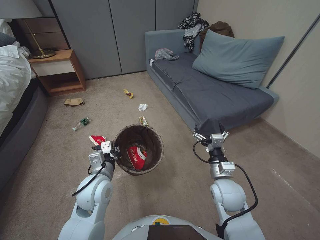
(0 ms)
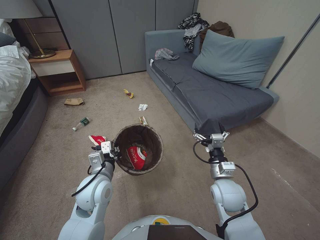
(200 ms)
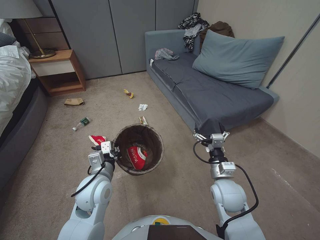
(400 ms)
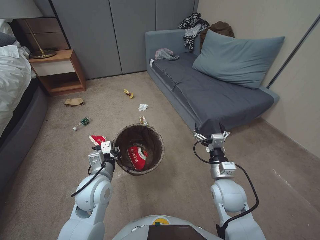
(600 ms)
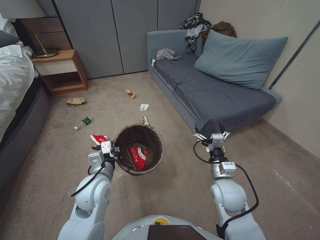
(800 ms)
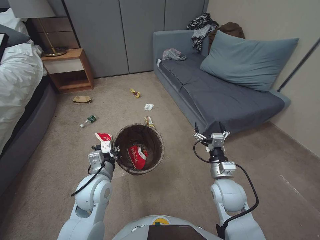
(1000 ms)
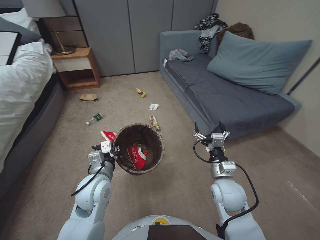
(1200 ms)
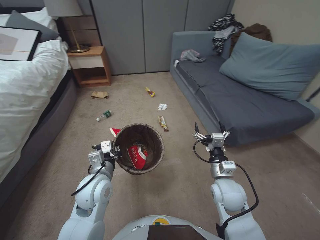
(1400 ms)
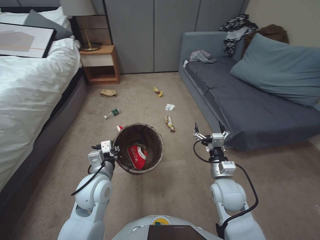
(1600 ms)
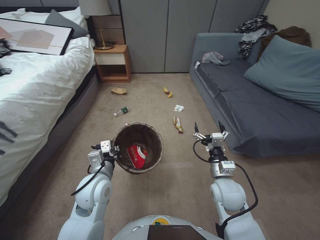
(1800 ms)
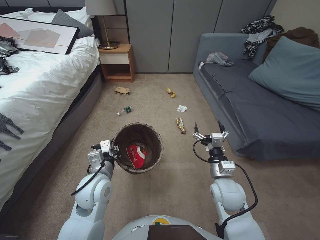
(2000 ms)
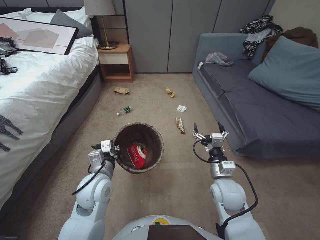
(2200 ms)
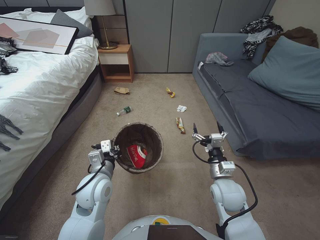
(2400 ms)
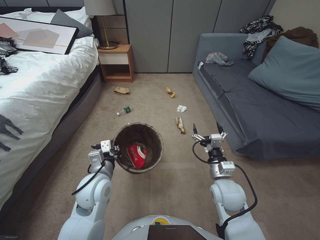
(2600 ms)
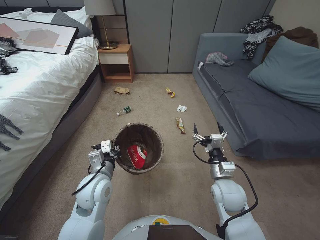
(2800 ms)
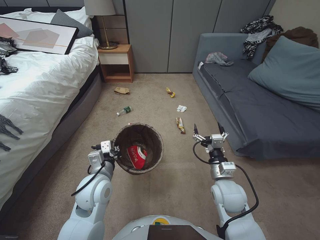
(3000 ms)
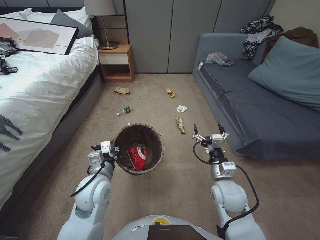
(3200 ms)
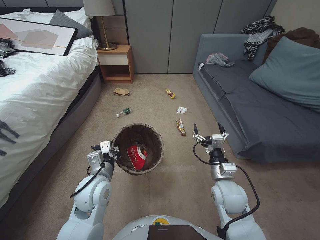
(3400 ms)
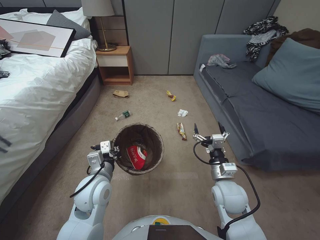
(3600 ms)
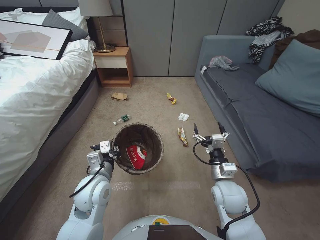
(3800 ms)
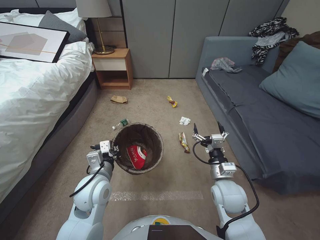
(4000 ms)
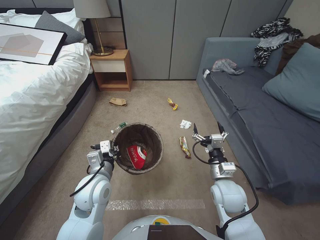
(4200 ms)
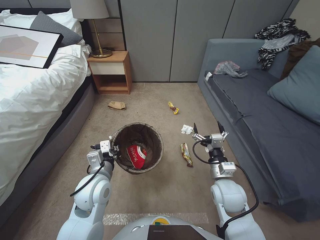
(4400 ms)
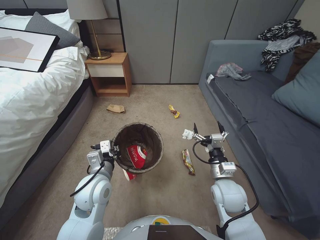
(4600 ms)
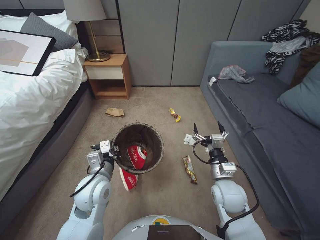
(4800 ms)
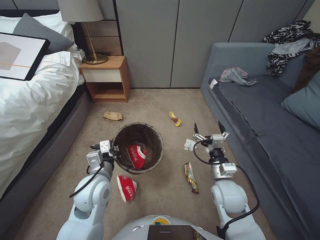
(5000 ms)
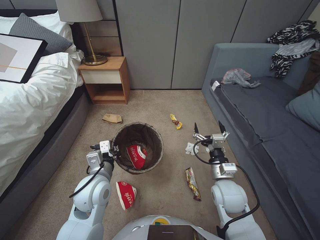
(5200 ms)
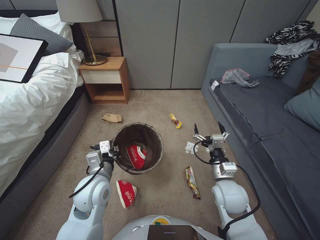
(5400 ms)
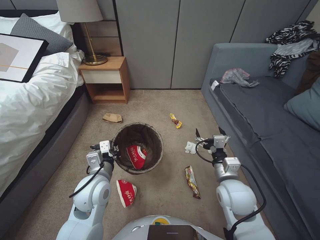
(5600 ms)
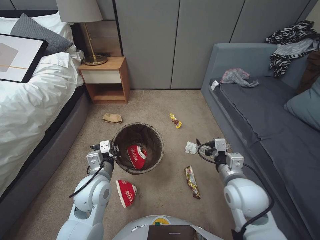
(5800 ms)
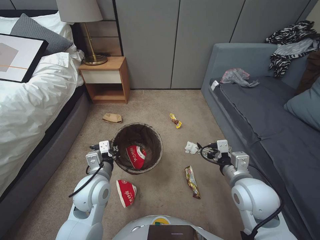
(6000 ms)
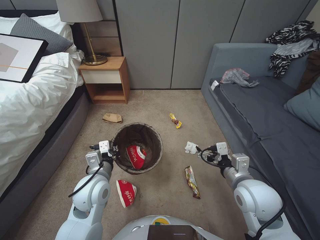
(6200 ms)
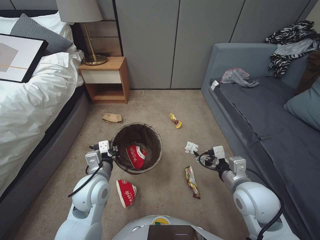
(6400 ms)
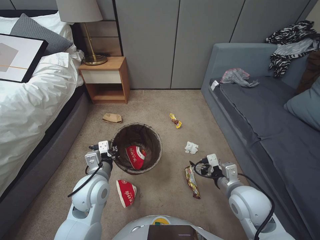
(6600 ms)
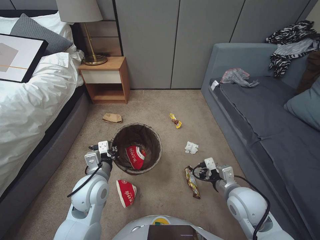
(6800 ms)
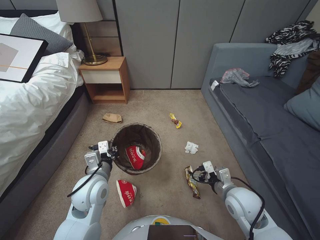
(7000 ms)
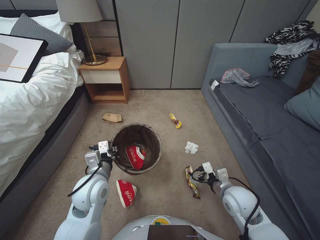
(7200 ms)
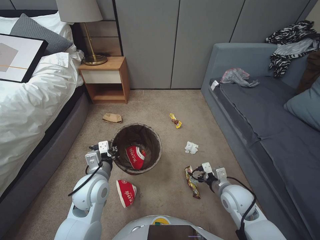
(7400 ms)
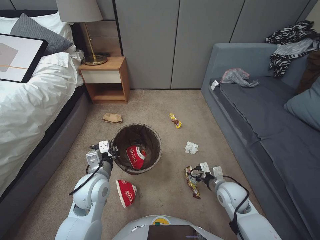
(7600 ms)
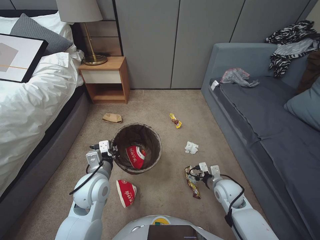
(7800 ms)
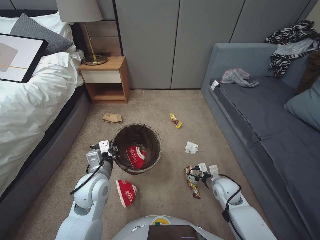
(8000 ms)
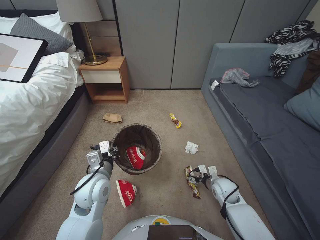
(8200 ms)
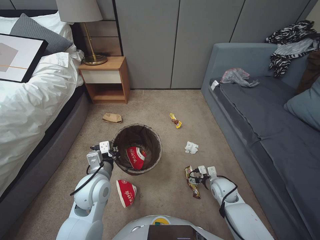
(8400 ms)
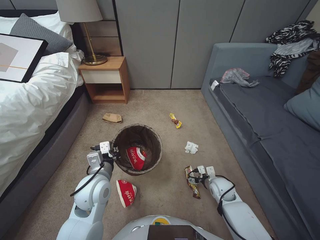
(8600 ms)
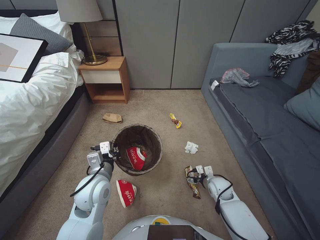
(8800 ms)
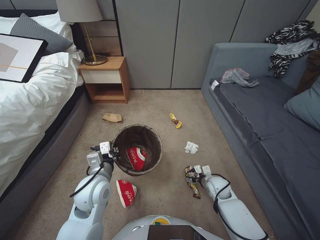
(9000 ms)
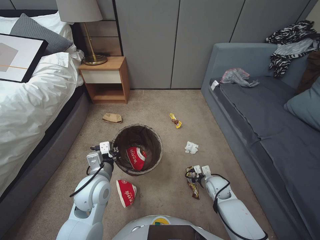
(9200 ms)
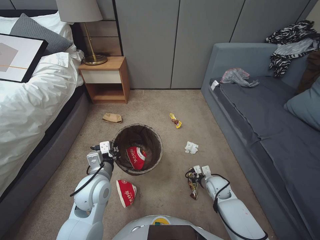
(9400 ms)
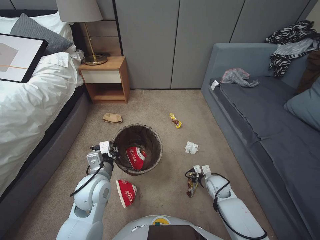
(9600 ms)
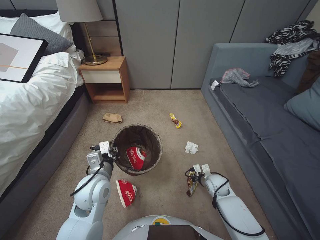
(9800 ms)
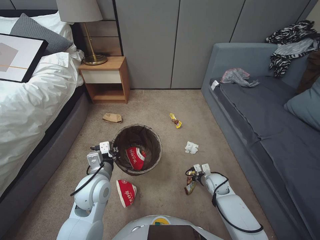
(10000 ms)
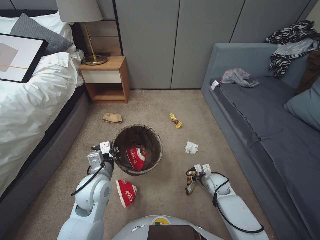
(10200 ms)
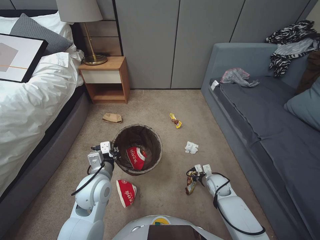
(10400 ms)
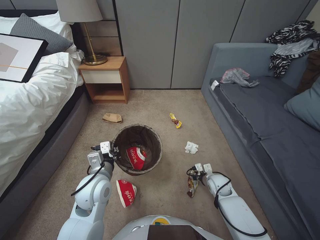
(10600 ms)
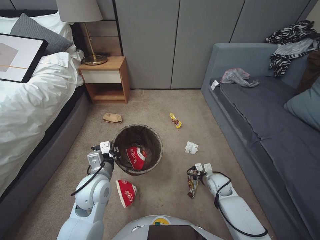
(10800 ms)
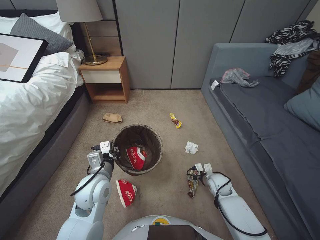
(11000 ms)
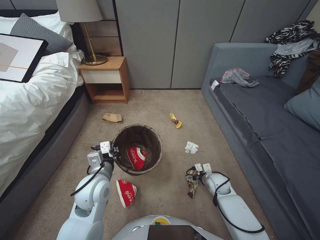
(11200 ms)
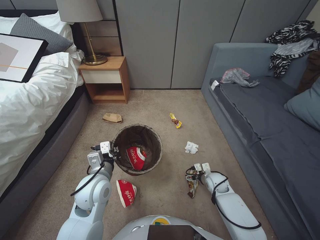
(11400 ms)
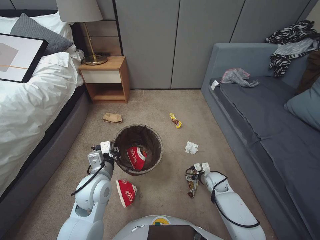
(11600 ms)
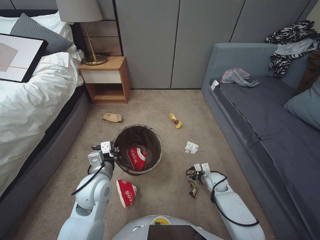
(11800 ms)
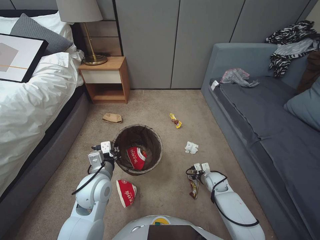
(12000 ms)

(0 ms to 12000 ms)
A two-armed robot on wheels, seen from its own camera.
Task of the whole recording: Pick up the trash bin, then pick up the garbage from the floor and place it into the trash bin.
4400 ms - 6000 ms: The right gripper is displaced upward by roughly 10 cm.
6000 ms - 7600 ms: The right gripper heads downward, covering about 15 cm.
7600 ms - 9000 ms: The right gripper goes about 10 cm downward and forward.
9000 ms - 10400 ms: The right gripper closes its fingers.
10400 ms - 12000 ms: The right gripper opens its fingers.

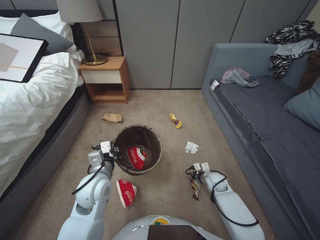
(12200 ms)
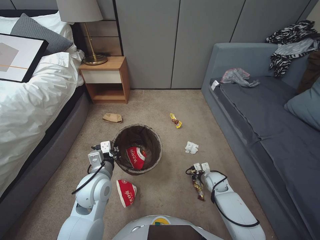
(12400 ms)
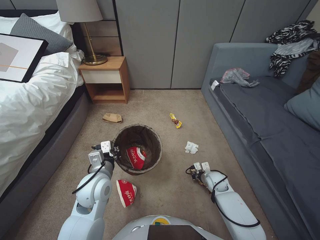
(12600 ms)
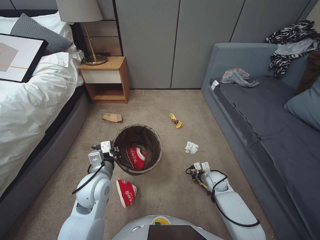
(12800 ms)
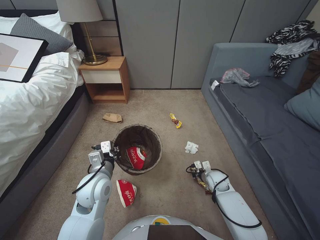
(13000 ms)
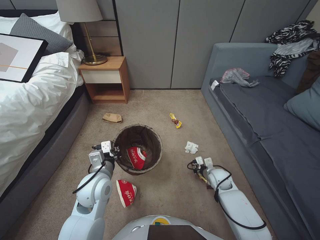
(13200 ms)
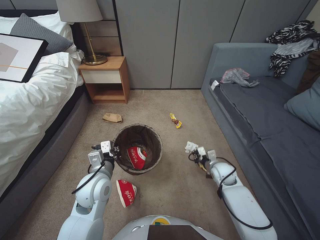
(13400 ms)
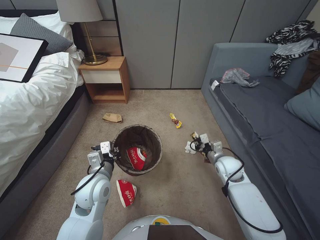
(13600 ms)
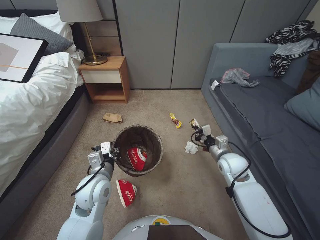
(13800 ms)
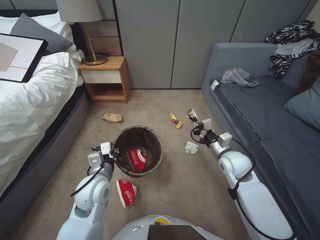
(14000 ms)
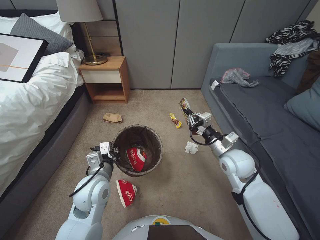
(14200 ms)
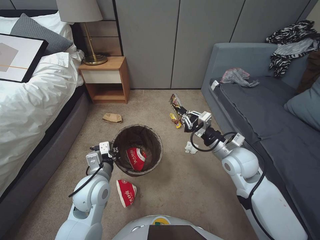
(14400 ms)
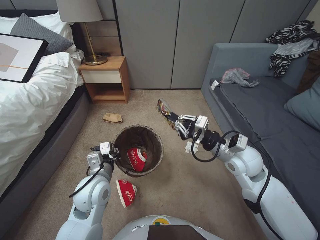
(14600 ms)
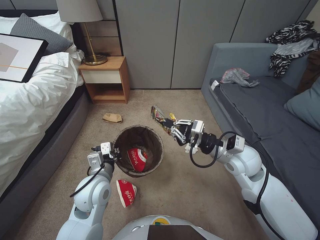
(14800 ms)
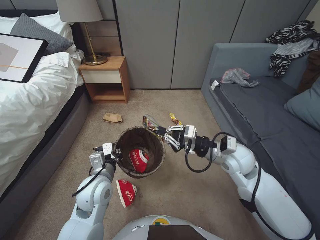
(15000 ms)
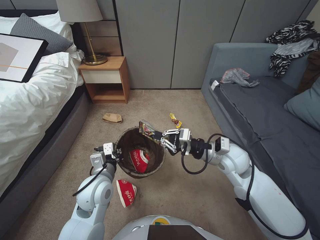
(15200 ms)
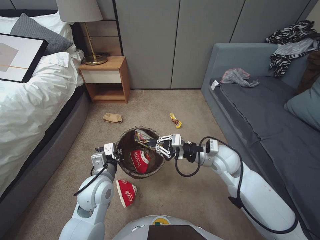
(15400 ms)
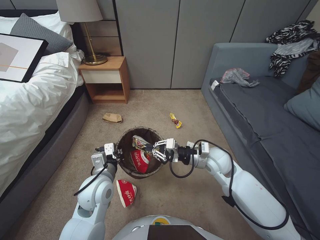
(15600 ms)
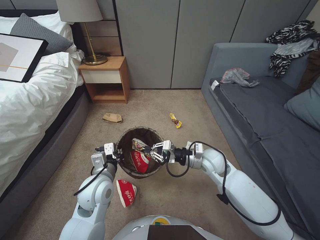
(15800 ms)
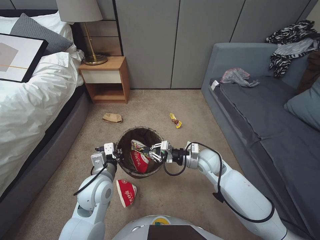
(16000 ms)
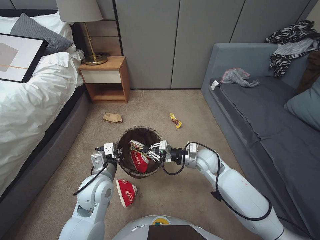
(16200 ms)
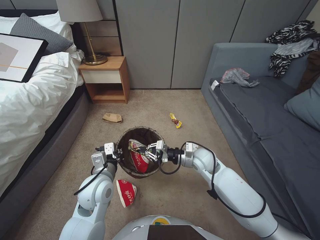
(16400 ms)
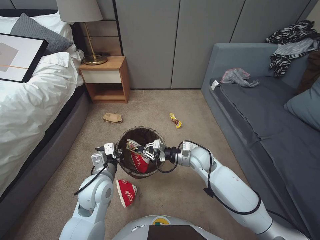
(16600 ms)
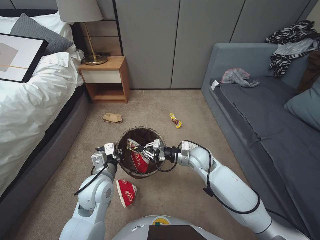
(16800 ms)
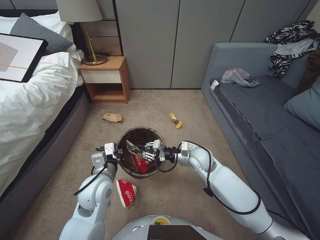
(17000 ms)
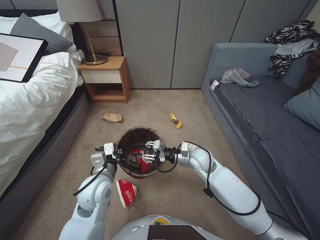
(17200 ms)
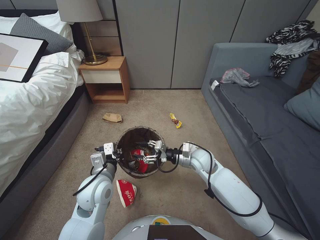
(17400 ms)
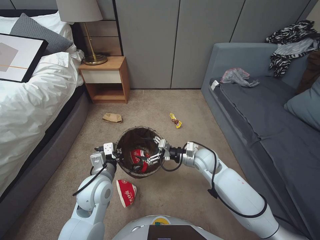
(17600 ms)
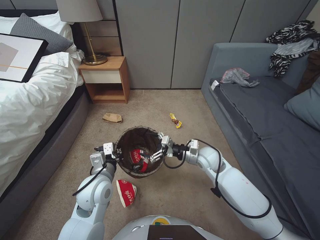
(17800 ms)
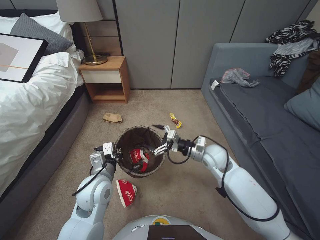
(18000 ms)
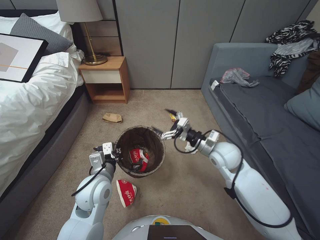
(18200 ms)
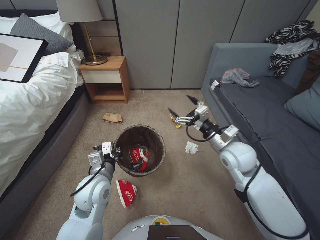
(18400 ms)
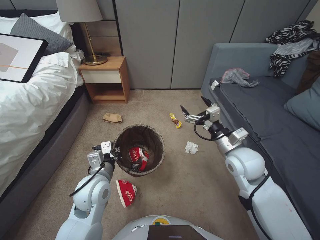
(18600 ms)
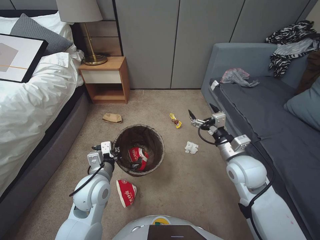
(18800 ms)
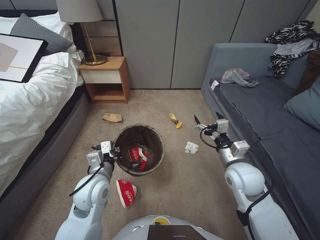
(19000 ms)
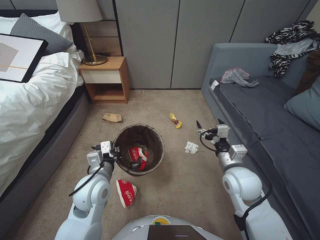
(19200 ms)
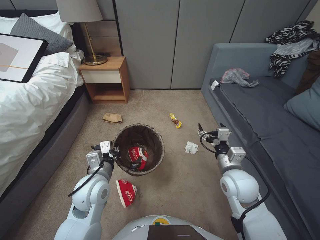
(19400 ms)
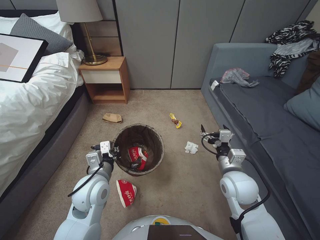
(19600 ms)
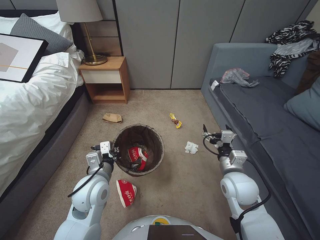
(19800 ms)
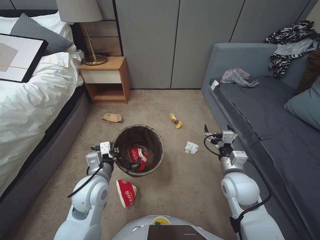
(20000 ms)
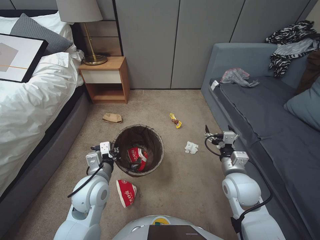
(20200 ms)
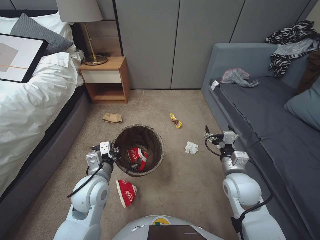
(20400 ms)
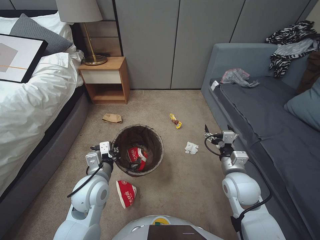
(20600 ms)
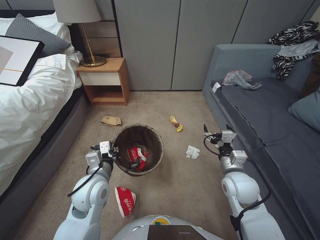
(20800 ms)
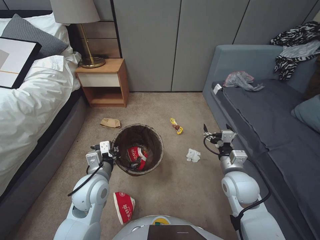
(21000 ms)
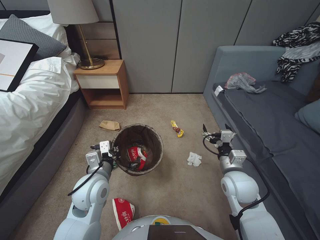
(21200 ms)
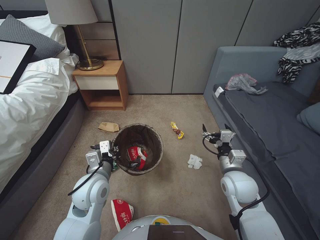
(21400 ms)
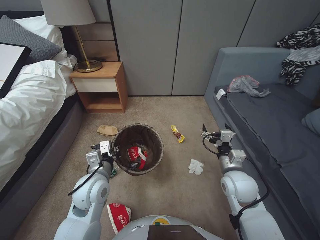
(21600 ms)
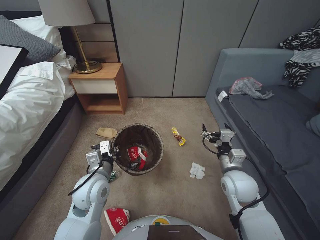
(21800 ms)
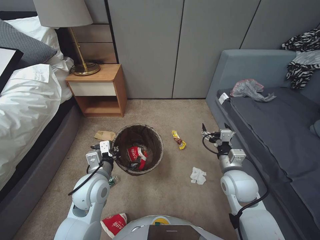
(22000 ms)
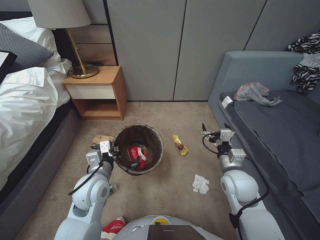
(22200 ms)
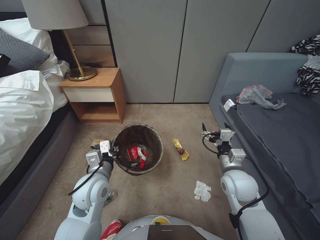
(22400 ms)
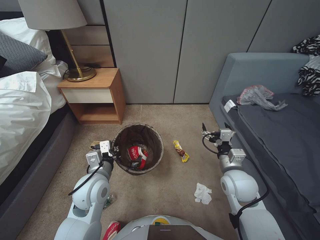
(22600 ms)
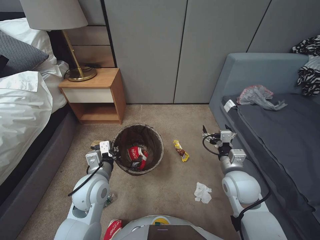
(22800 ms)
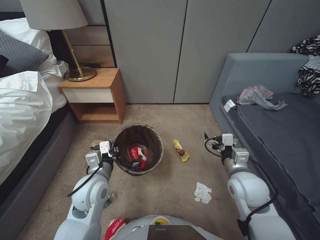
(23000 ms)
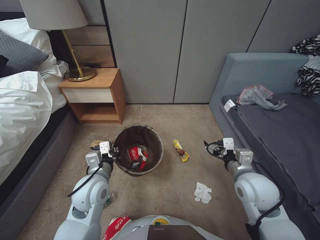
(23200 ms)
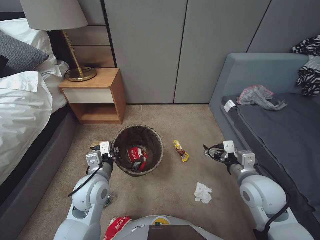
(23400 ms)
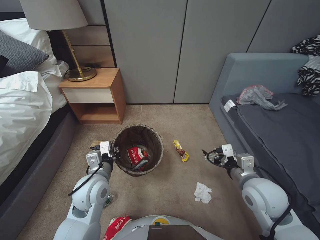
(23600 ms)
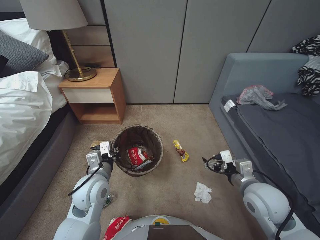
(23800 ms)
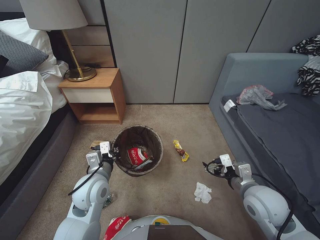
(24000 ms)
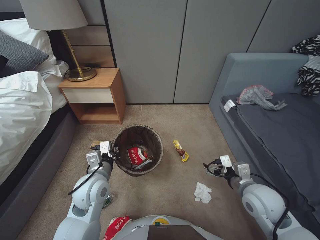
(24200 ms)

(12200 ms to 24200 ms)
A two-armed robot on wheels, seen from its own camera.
Task of the whole recording: Pick up the trash bin, then pick up the garbage from the floor and place it into the trash bin.
12200 ms - 13800 ms: The right gripper shifts about 10 cm upward, and closes up.
13800 ms - 15200 ms: The right gripper moves upward, about 15 cm.
15200 ms - 16600 ms: The right gripper heads downward and to the left, covering approximately 10 cm.
16600 ms - 18200 ms: The right gripper shifts roughly 10 cm upward and to the right, and opens up.
18200 ms - 19800 ms: The right gripper travels backward by about 10 cm.
19800 ms - 21200 ms: The two grippers keep their place.
22600 ms - 24200 ms: The right gripper travels backward by roughly 5 cm.
